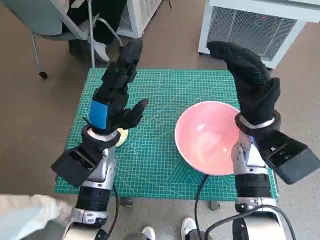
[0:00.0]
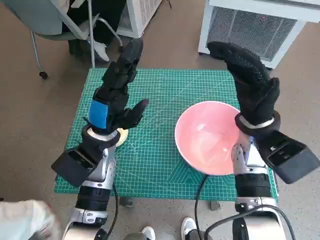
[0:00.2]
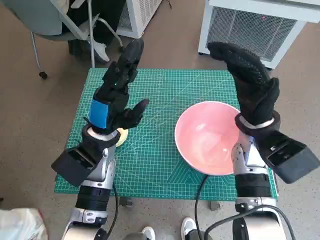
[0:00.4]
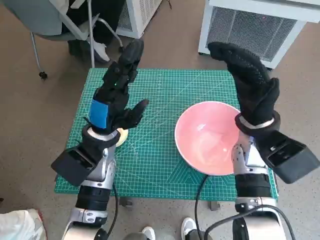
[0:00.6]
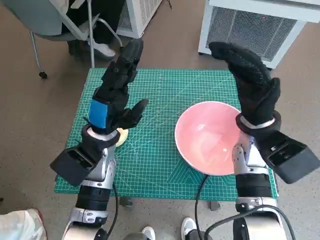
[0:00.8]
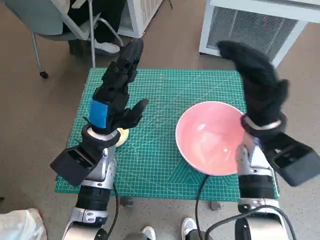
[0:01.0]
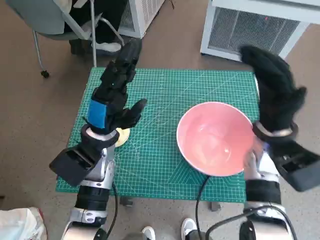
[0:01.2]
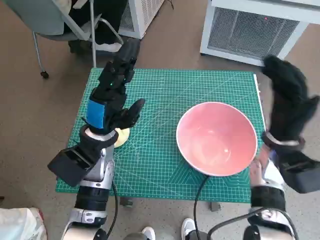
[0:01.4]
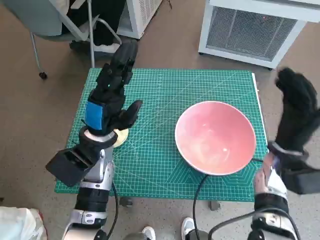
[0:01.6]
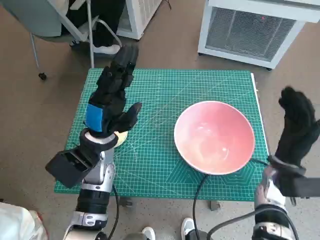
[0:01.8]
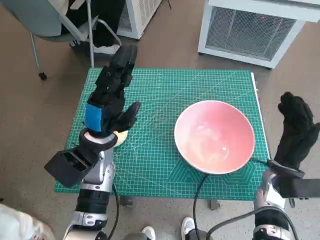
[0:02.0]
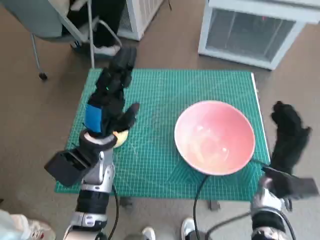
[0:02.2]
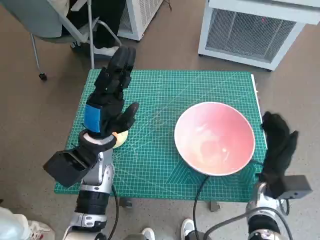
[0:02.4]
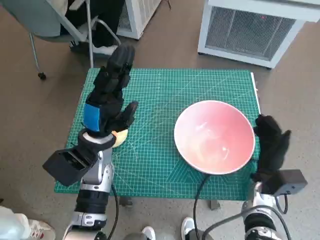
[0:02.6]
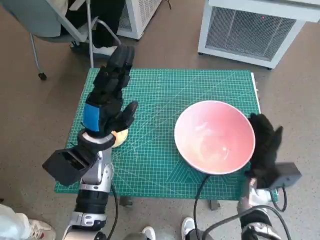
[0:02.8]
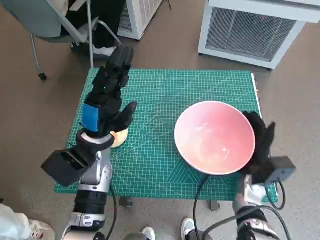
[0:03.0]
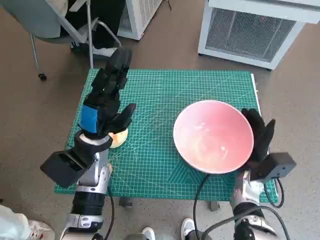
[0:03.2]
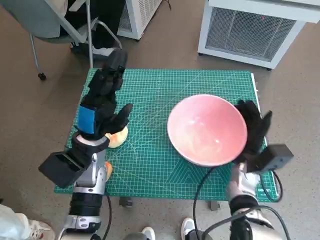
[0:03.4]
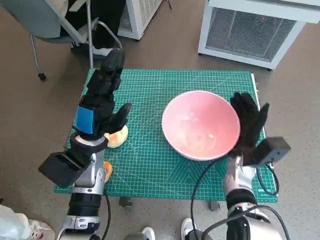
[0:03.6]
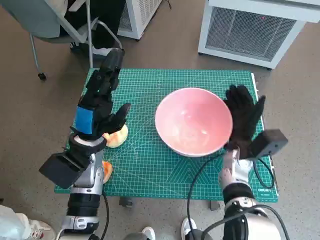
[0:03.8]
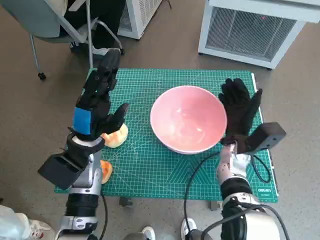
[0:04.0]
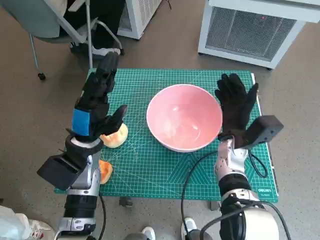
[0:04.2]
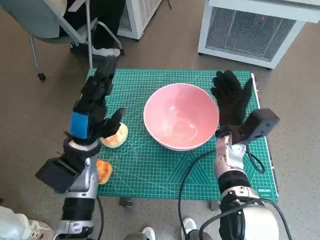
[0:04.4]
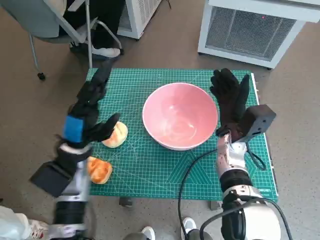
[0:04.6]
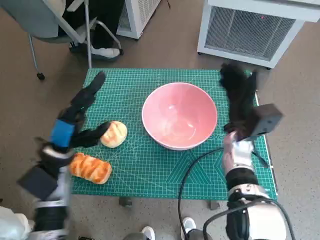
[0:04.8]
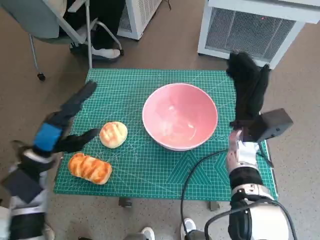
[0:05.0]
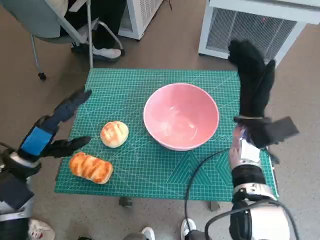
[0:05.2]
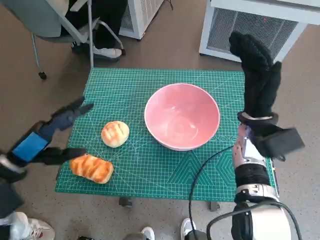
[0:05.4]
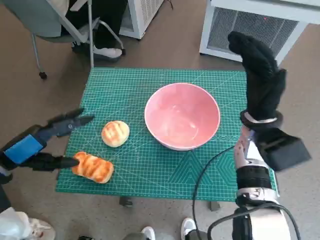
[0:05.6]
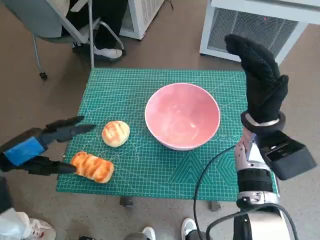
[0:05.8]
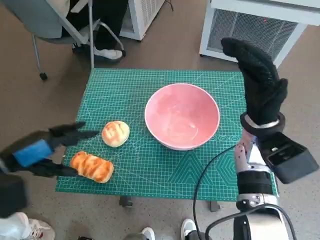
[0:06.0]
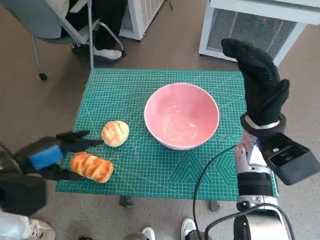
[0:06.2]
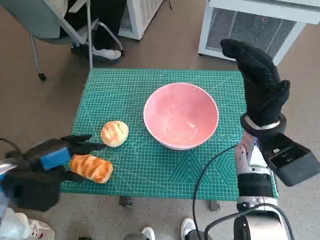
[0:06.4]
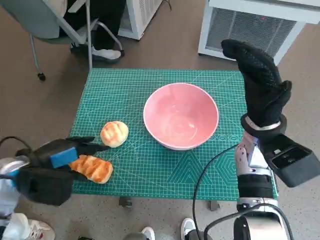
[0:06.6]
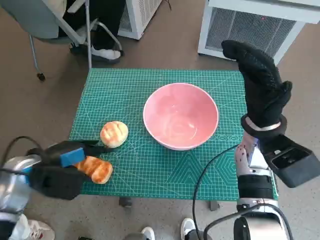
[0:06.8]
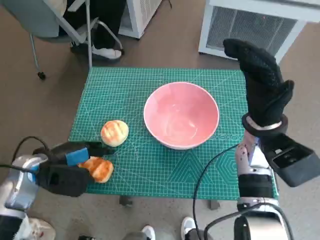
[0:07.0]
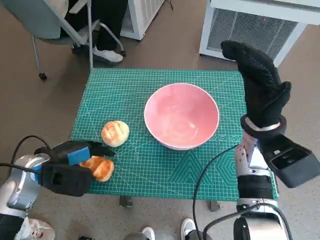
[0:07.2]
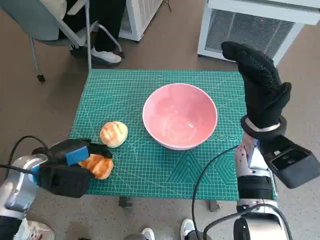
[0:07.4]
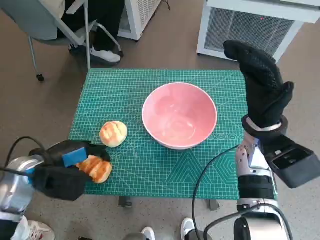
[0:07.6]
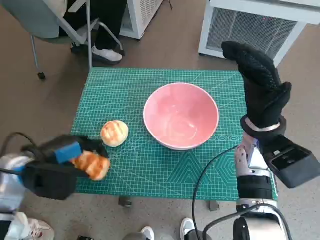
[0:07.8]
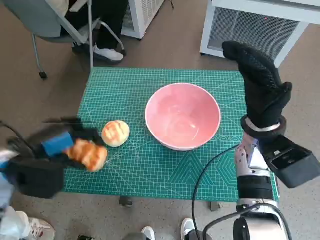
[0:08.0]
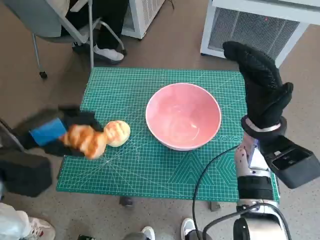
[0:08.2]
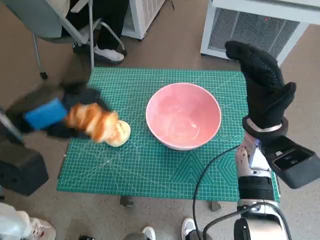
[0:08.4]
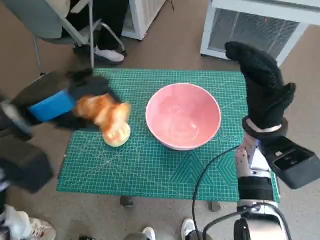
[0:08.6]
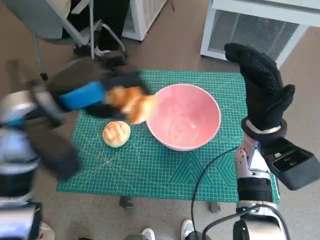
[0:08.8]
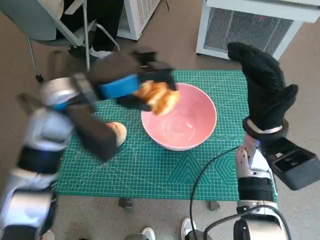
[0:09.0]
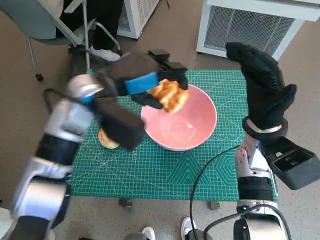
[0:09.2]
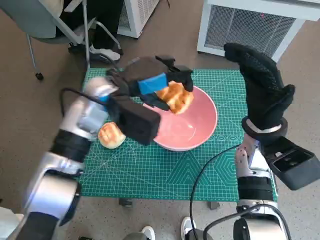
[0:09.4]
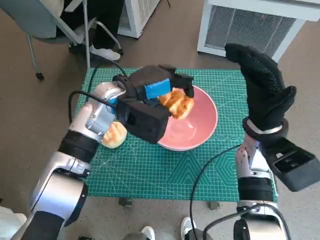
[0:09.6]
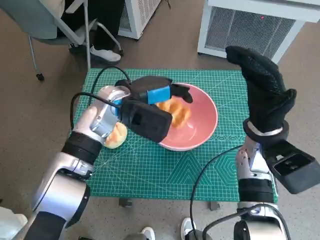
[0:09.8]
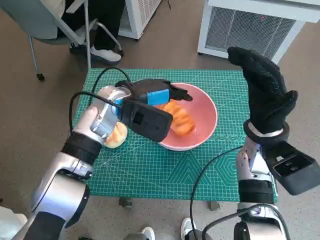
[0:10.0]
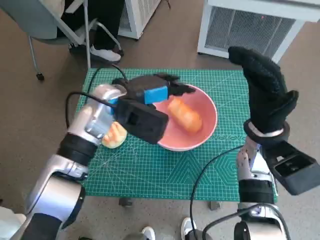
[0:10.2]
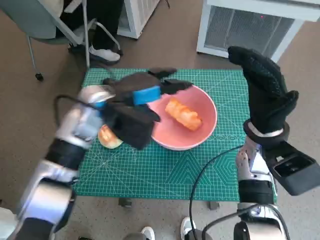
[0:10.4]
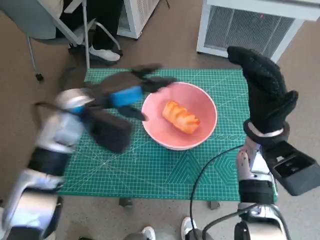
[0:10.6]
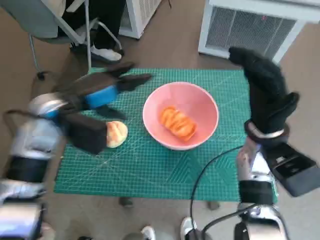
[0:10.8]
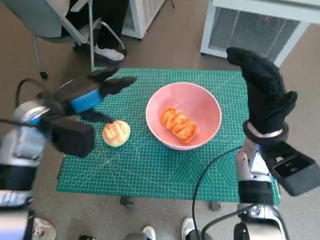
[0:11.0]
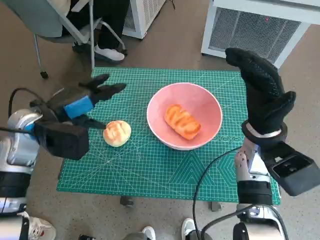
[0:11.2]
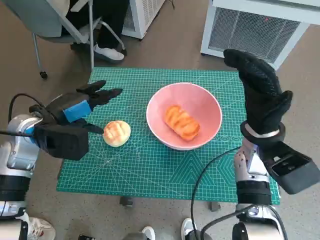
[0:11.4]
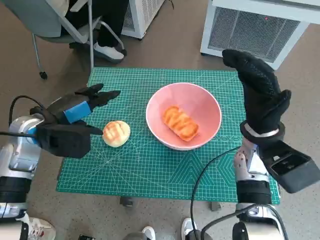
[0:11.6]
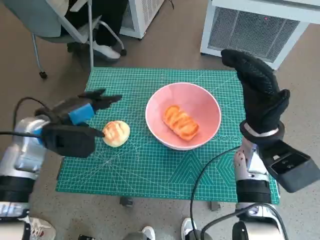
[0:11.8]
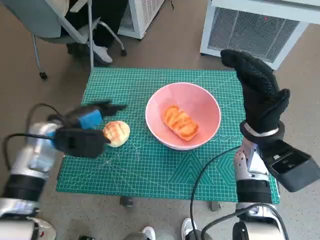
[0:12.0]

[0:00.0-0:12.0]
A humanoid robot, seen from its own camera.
Task of the whole recording: Push the bowl to the center of the table and put the bread into the bowl.
Step, 0:00.0 to 0:04.6: Move the pink bowl to the center of table with right hand.
Step, 0:05.0 to 0:07.4: Grasp the long bread with left hand.
Step, 0:07.6 to 0:10.2: Place the long bread in pink bowl with left hand.
0:01.6 to 0:03.0: The right hand travels downward by approximately 10 cm.
0:03.0 to 0:04.4: The right hand goes some 10 cm upward, forward and to the left.
0:04.4 to 0:06.0: The left hand shifts roughly 15 cm to the left, backward and upward; the right hand shifts approximately 10 cm upward.
0:06.0 to 0:07.6: The left hand moves downward, approximately 5 cm.
0:07.6 to 0:09.0: The left hand is displaced upward, to the right and forward by some 20 cm.
0:09.0 to 0:10.4: The left hand shifts by about 10 cm.
0:10.4 to 0:12.0: The left hand goes some 15 cm to the left and downward.

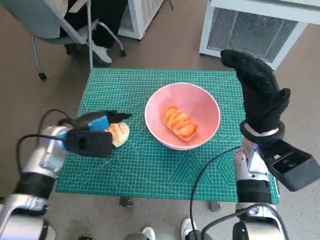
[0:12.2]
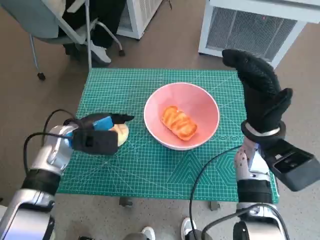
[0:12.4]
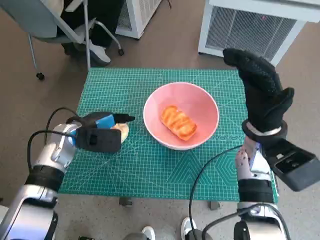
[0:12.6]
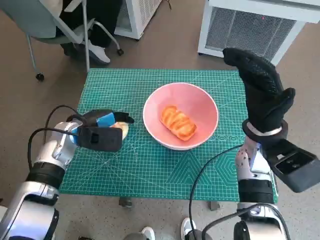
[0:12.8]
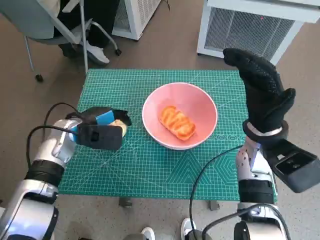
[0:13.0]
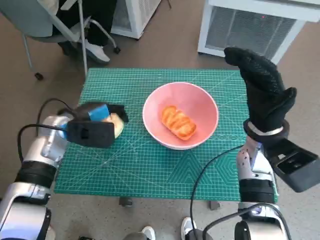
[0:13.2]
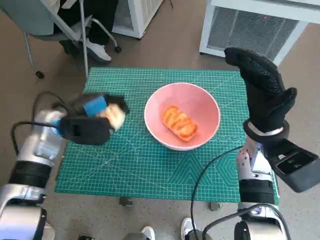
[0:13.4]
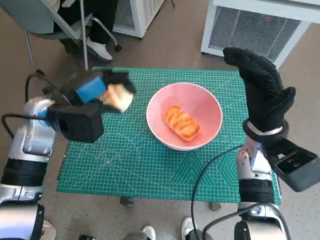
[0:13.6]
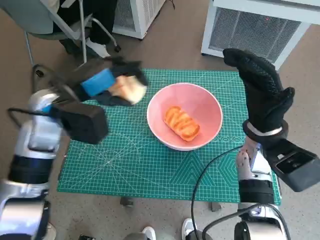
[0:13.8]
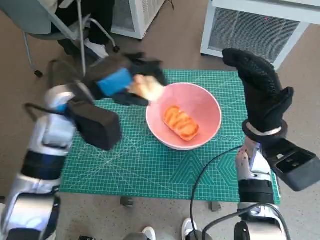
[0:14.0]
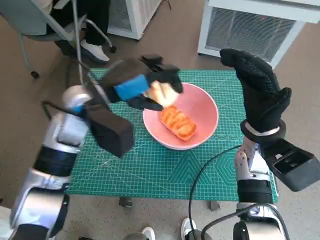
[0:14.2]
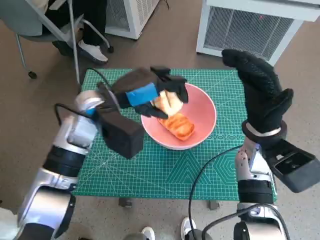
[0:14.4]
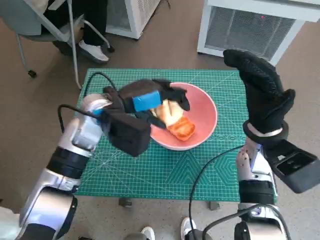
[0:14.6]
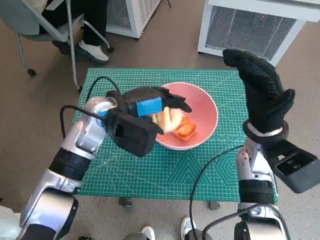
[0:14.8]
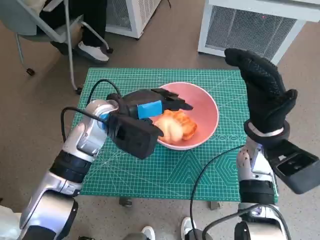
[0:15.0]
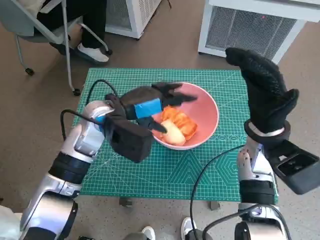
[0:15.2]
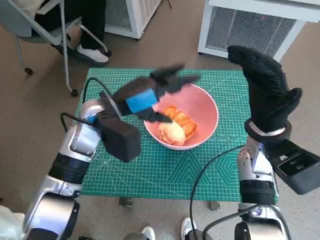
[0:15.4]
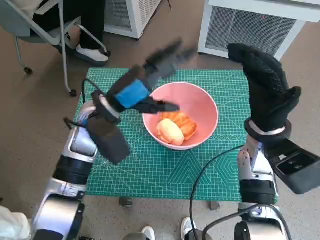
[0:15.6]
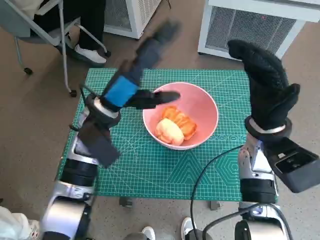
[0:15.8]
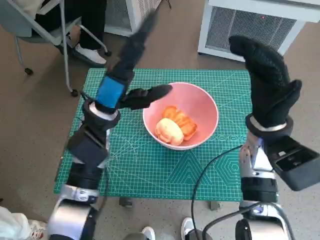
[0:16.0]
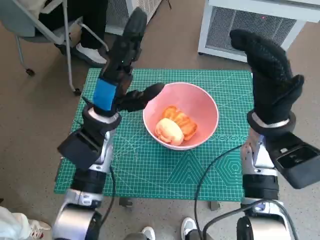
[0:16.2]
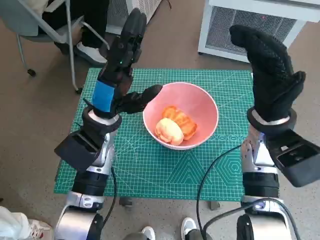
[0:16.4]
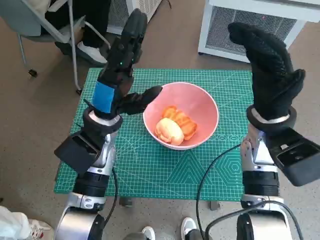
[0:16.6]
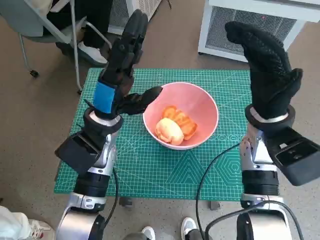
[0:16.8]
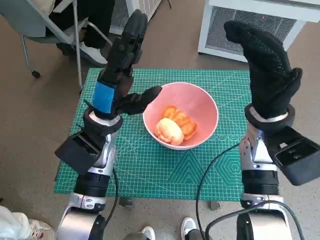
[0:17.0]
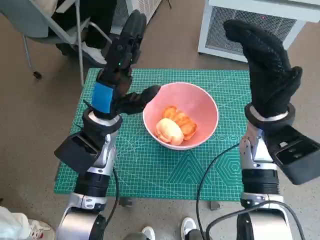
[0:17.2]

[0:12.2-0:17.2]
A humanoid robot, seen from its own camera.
Task of the whole recording: Push the bowl to the center of the table and put the bread into the bowl.
Step, 0:13.0 to 0:15.2: Place the round bread in pink bowl with left hand.
0:12.2 to 0:13.8: The left hand shifts some 10 cm upward.
0:13.8 to 0:15.6: The left hand shifts roughly 5 cm to the right.
